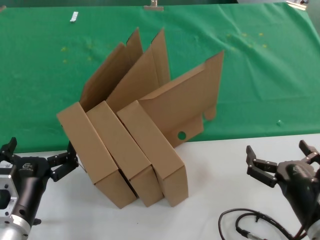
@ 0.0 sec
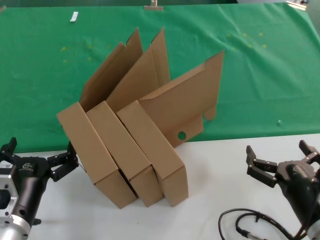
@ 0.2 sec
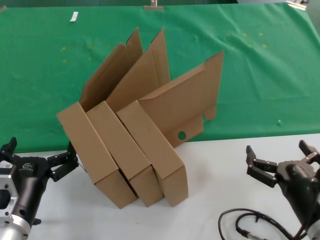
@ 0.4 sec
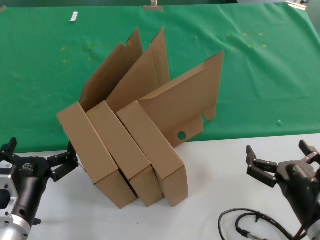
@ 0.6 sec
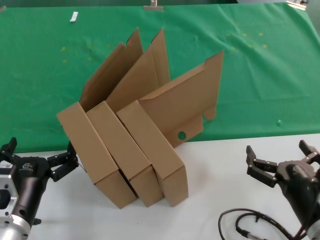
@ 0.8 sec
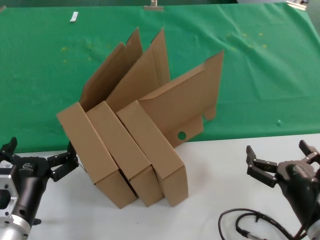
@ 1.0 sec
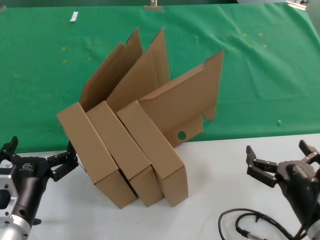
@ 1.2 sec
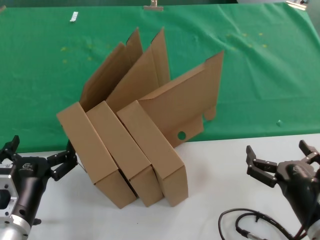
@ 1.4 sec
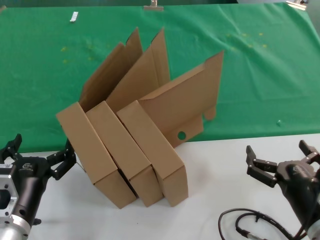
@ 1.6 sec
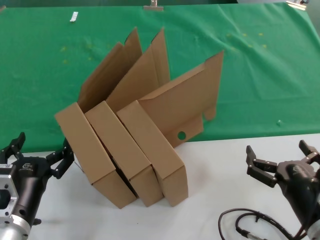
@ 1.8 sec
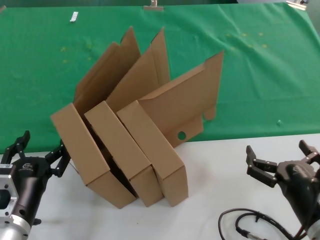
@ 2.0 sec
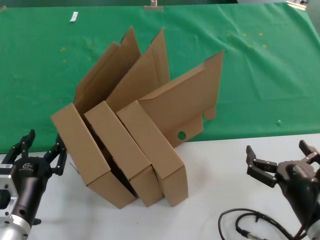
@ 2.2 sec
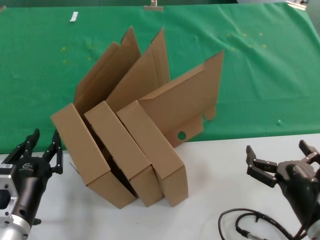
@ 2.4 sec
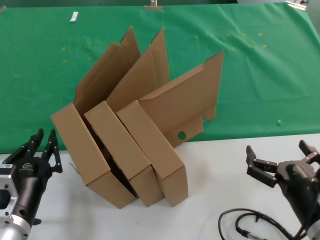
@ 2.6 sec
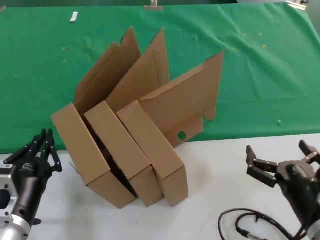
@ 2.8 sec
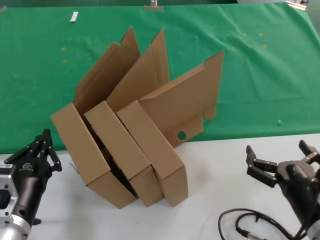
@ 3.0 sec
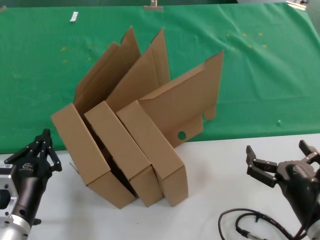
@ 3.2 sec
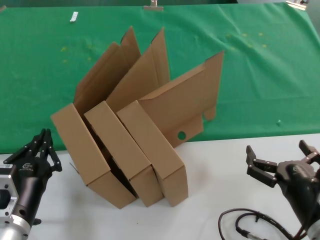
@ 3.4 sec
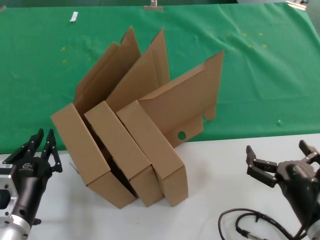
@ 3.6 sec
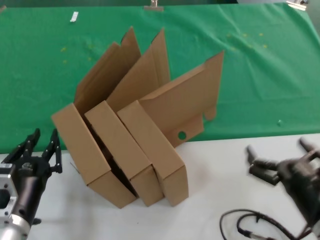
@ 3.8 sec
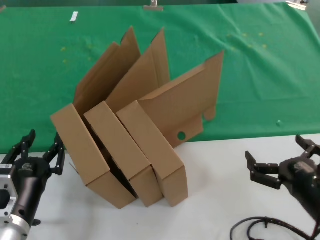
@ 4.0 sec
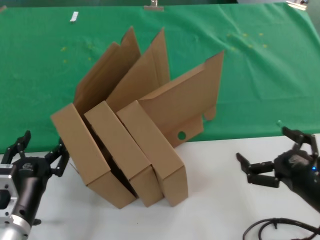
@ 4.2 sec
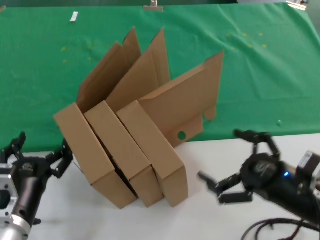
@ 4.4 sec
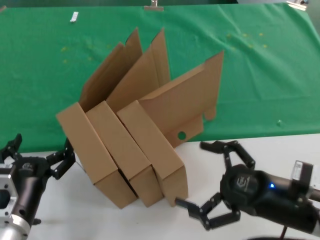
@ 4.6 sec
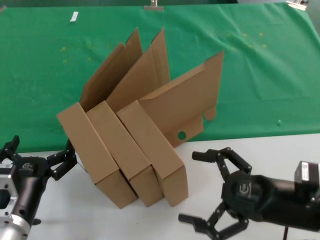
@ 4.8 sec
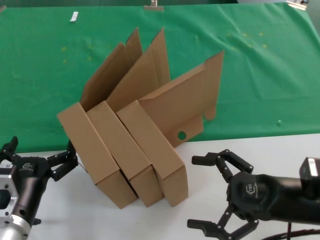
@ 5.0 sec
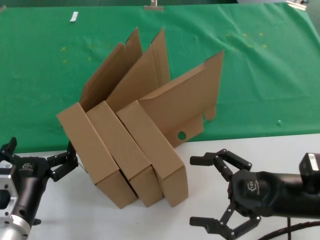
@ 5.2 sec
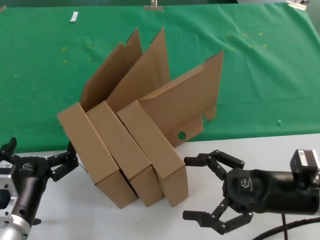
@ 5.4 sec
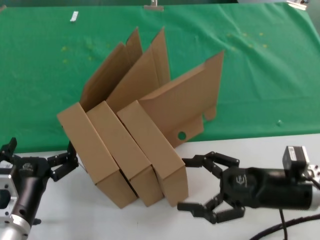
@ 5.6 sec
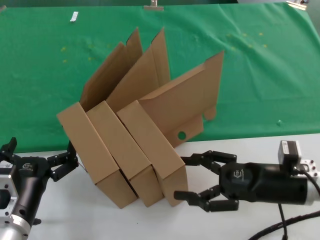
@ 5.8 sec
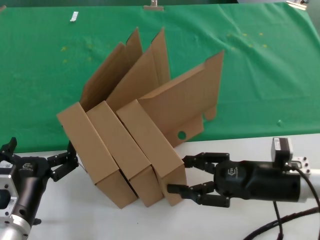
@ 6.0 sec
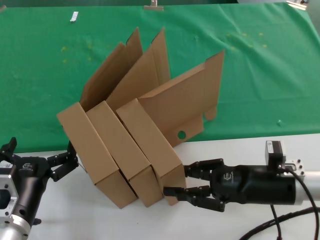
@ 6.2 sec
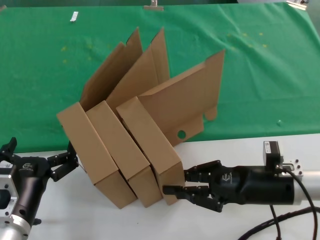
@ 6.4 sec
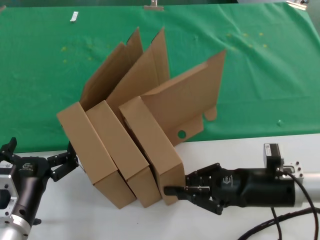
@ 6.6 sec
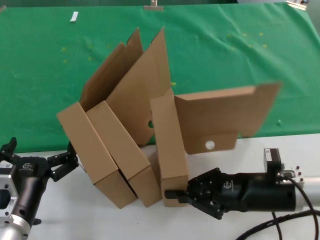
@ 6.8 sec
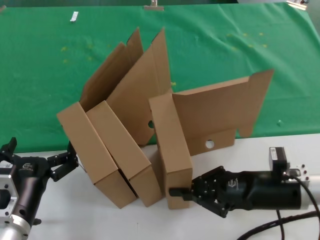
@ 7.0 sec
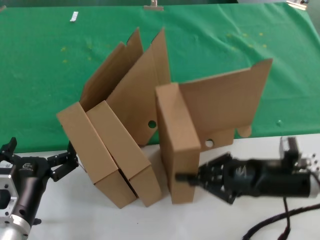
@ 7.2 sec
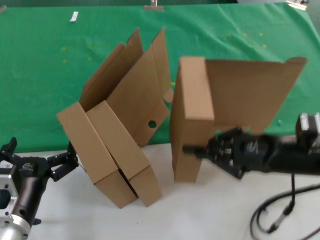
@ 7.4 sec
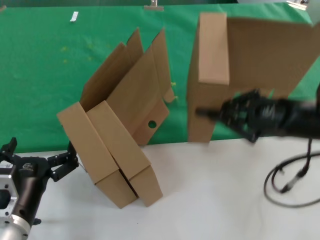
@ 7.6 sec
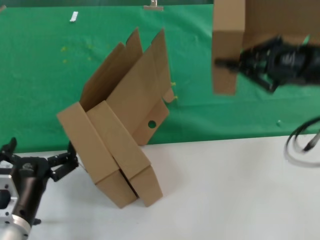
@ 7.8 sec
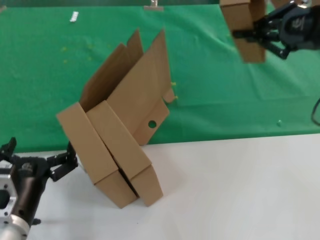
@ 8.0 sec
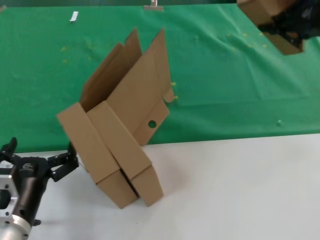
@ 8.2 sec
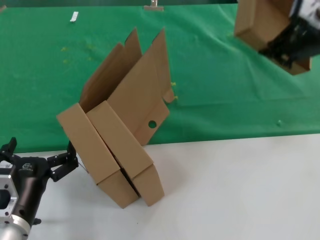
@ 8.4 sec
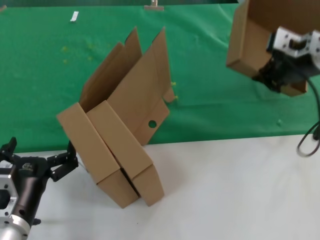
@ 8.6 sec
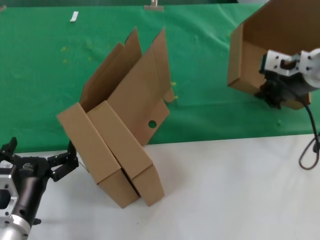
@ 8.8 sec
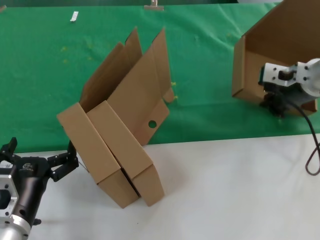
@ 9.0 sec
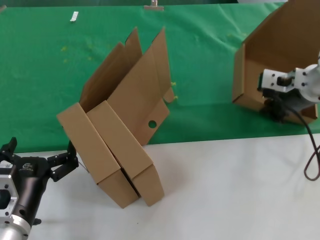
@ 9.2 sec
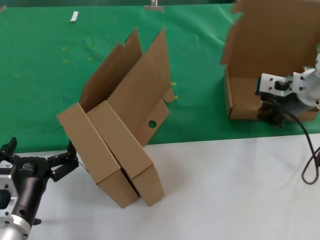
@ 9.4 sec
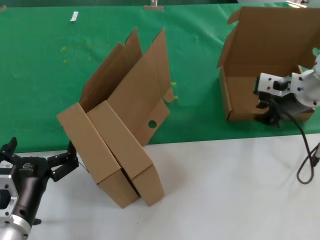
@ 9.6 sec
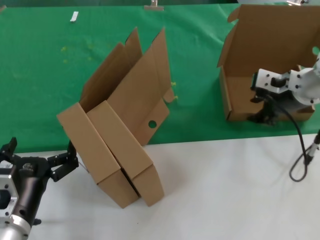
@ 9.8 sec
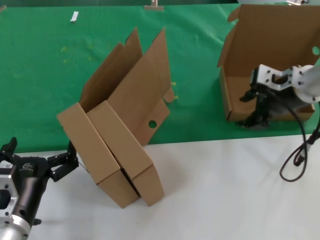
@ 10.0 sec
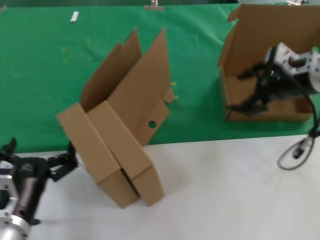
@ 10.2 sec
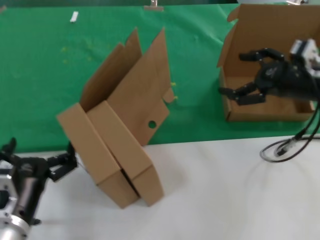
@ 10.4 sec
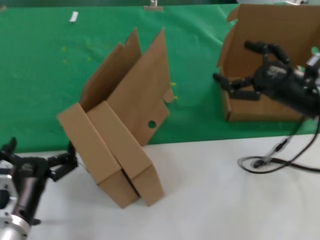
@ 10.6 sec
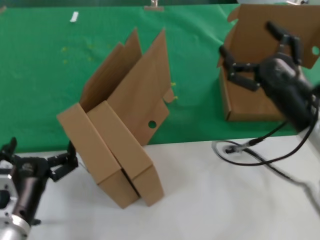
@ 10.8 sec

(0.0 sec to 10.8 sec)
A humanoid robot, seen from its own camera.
Task of the whole recording: pick up the paper box and put it at the back.
Step, 0.0 sec - 6.6 sec: Grasp the paper box.
Step, 7.0 sec - 9.4 sec: Place the paper box on the table.
0.0 sec - 3.0 sec: Both hands stay about where they are.
3.0 sec - 4.6 sec: The right hand moves upward, approximately 5 cm.
4.6 sec - 6.2 sec: The right hand goes roughly 10 cm forward.
6.2 sec - 7.8 sec: The right hand travels upward by roughly 20 cm.
7.8 sec - 9.2 sec: The right hand shifts roughly 10 cm to the left and forward, and travels upward and back again, roughly 10 cm each way.
9.2 sec - 10.8 sec: The right hand shifts roughly 15 cm downward and backward.

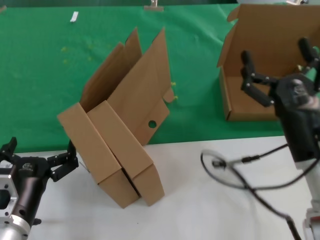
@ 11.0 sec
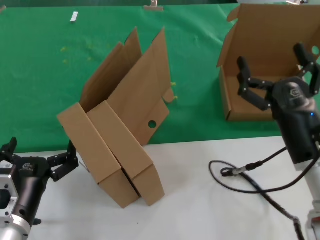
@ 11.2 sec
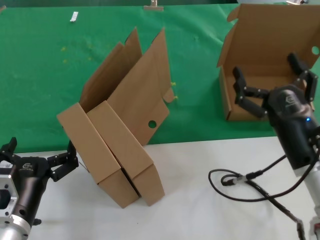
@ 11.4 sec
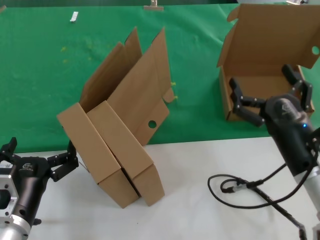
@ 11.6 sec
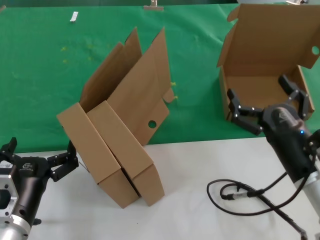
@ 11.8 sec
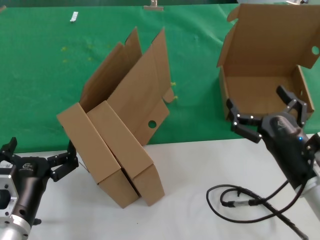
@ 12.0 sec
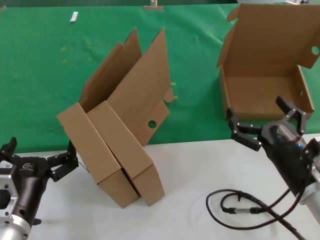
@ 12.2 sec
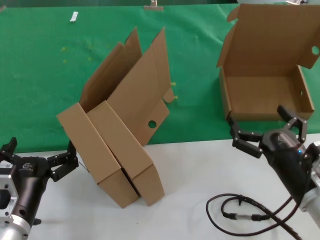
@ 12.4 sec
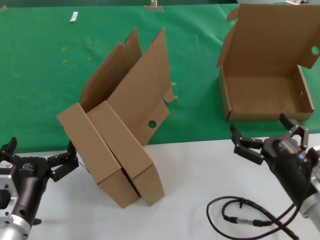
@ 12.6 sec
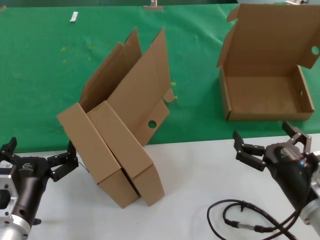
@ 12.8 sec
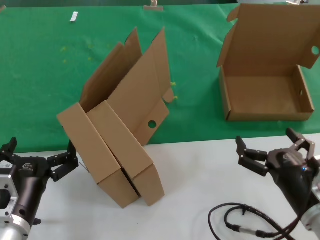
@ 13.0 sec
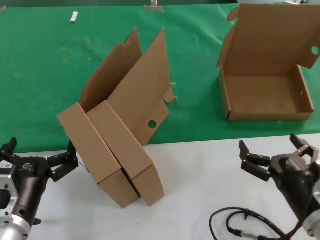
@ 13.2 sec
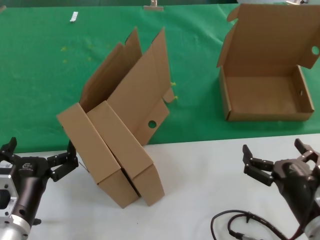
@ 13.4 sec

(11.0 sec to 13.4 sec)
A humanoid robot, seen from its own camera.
Task of the whole recording: pick up the paper box and put it at the back.
11.0 sec - 12.2 sec: The right hand moves backward, about 5 cm.
12.2 sec - 13.4 sec: The right hand heads backward, covering approximately 5 cm.
